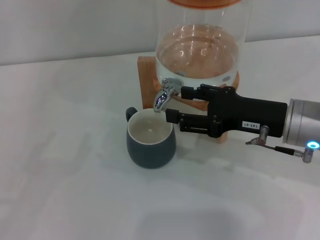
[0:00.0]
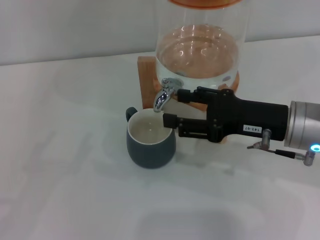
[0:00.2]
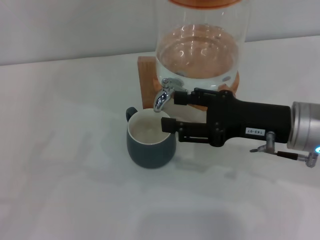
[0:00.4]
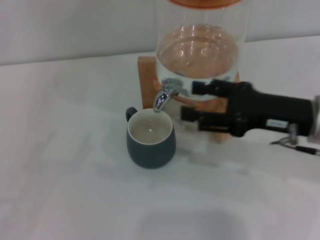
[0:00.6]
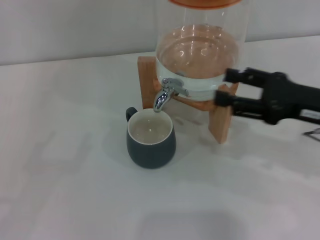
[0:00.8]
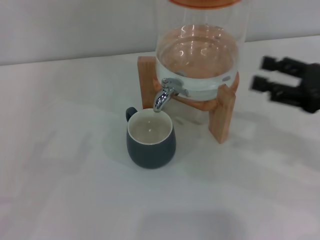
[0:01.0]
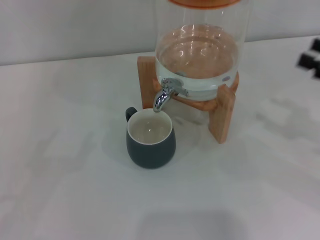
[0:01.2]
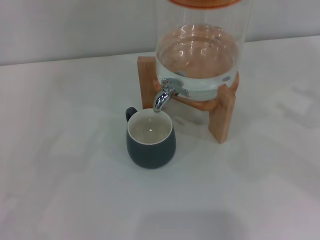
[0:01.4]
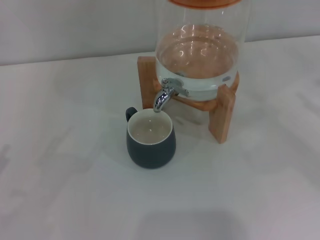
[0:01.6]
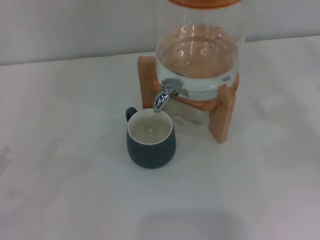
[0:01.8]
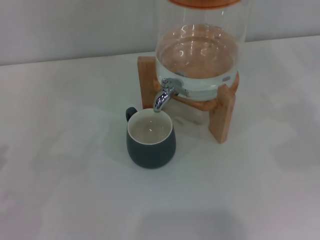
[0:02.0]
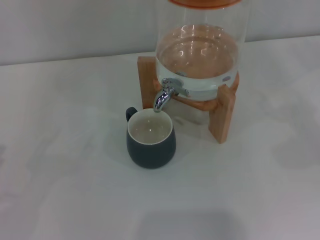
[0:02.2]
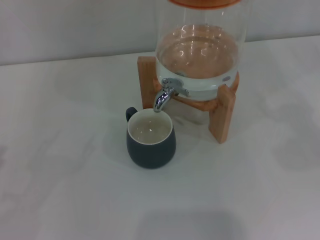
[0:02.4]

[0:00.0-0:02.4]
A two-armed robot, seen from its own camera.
Task of the whole recording: the left gripper pick up the black cup and place it horizontally under the faucet, the right gripper turn on the faucet to fill the cup, and then turn off the faucet.
0:00.0 to 0:01.2: The right gripper travels to the right by about 15 cm.
0:01.2 to 0:02.4: The right gripper shifts about 10 cm to the right.
